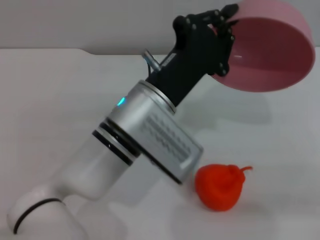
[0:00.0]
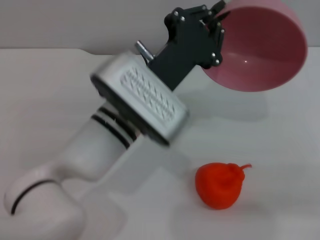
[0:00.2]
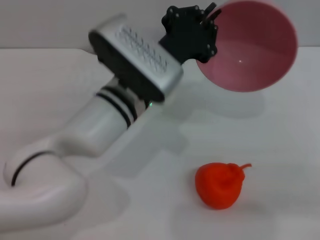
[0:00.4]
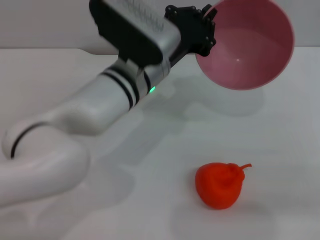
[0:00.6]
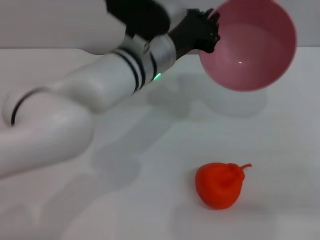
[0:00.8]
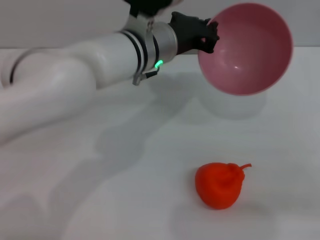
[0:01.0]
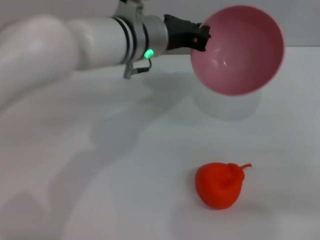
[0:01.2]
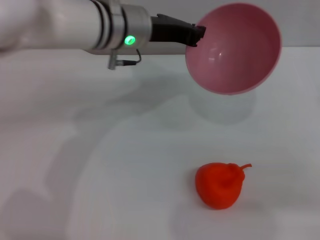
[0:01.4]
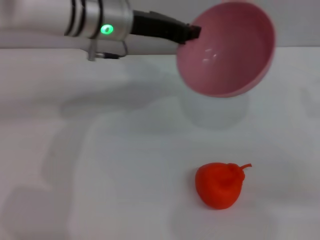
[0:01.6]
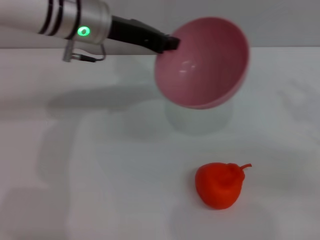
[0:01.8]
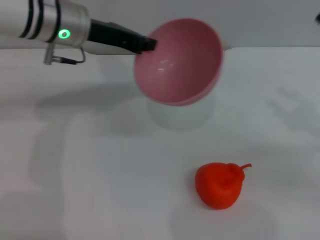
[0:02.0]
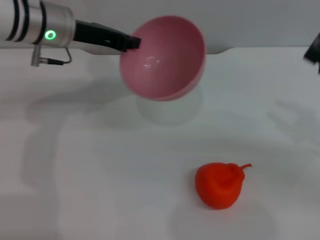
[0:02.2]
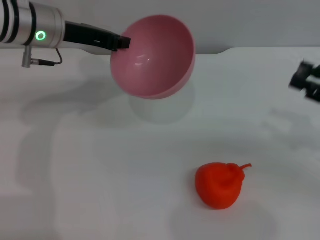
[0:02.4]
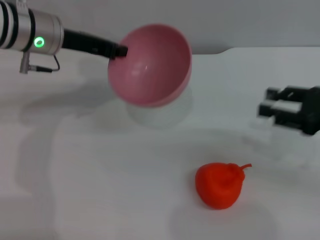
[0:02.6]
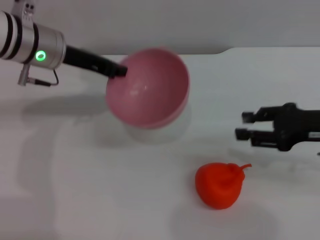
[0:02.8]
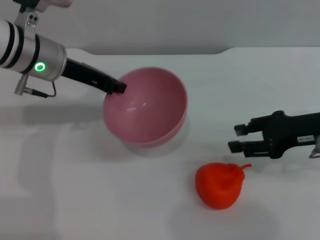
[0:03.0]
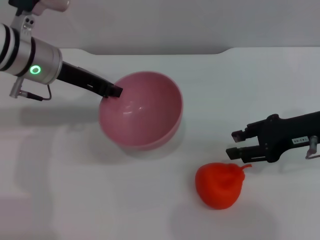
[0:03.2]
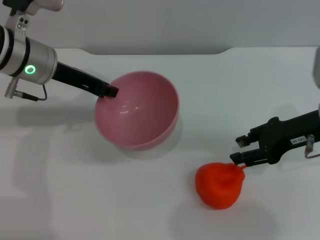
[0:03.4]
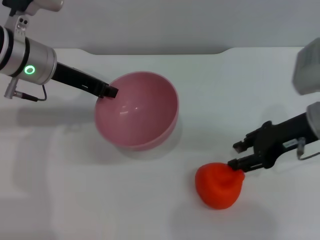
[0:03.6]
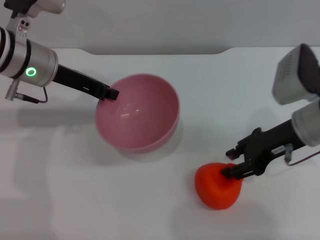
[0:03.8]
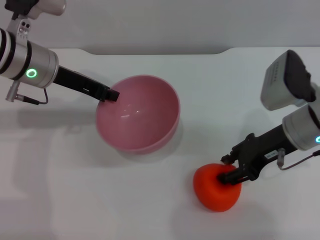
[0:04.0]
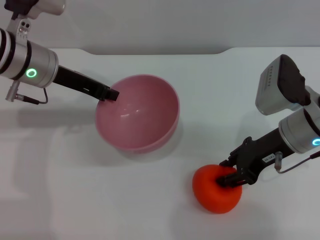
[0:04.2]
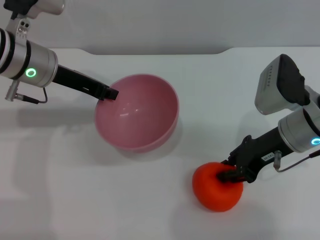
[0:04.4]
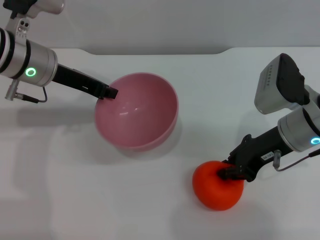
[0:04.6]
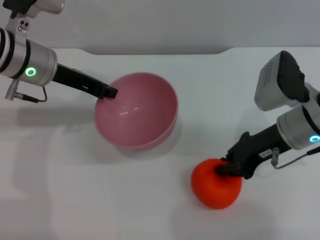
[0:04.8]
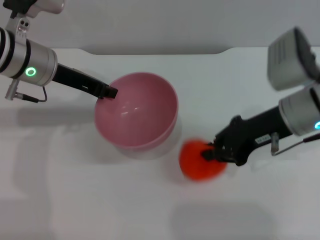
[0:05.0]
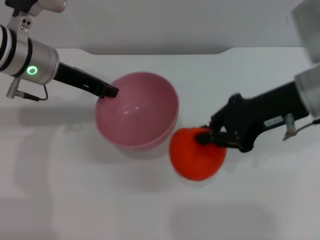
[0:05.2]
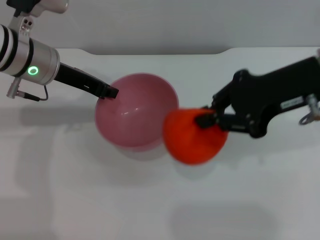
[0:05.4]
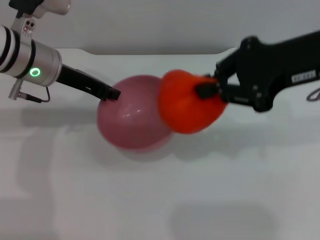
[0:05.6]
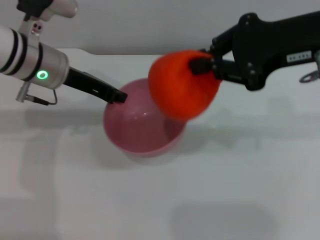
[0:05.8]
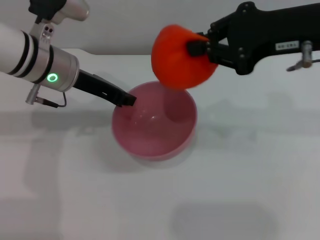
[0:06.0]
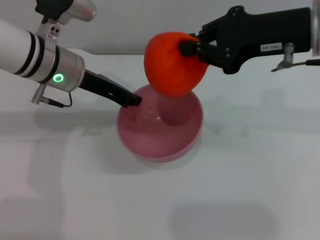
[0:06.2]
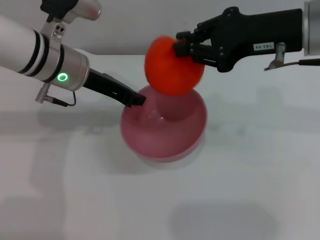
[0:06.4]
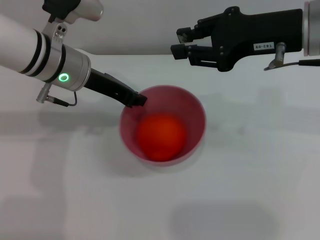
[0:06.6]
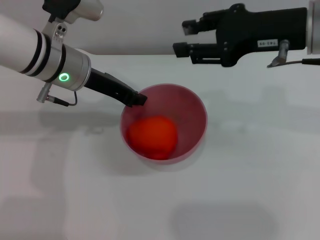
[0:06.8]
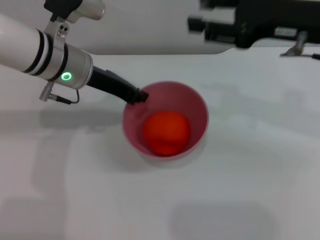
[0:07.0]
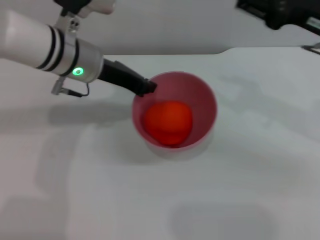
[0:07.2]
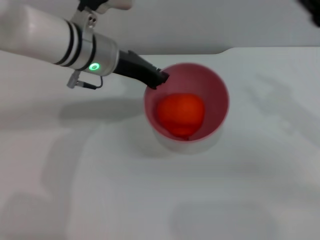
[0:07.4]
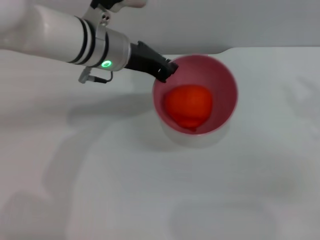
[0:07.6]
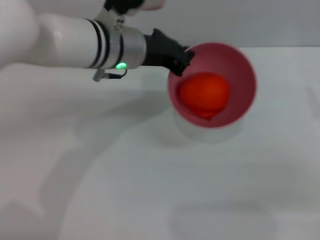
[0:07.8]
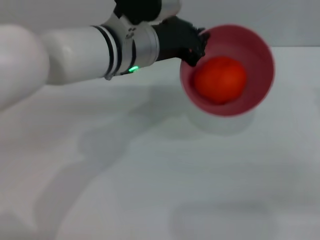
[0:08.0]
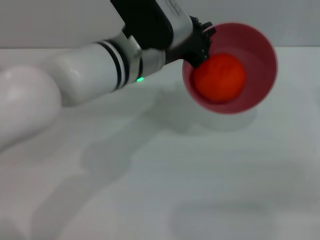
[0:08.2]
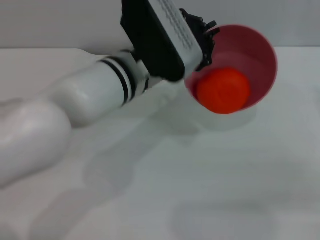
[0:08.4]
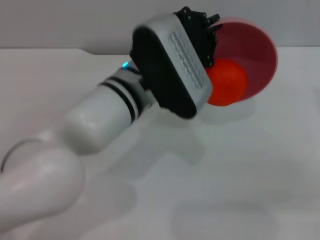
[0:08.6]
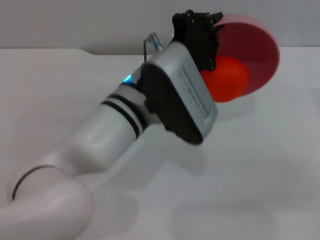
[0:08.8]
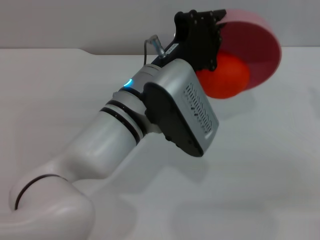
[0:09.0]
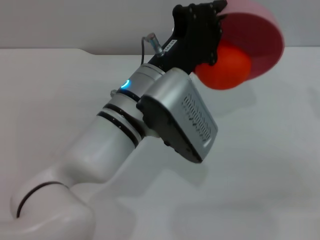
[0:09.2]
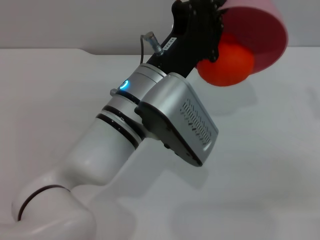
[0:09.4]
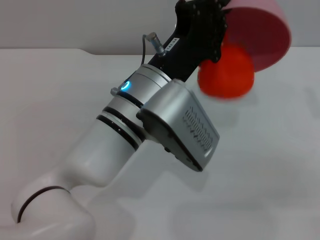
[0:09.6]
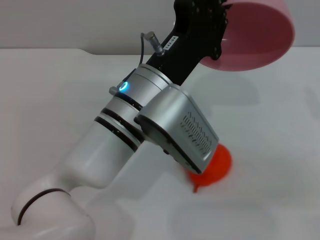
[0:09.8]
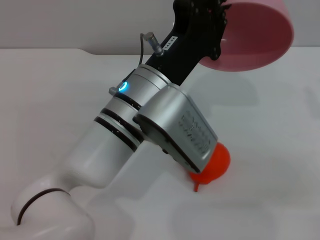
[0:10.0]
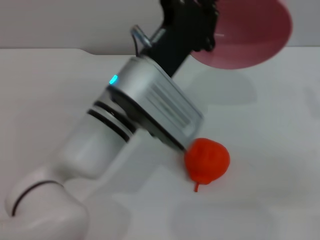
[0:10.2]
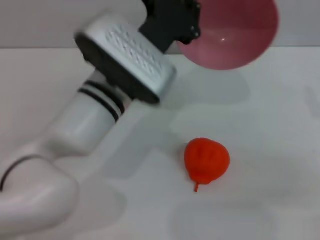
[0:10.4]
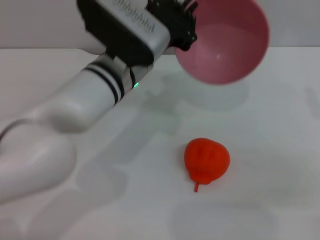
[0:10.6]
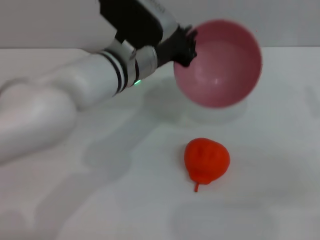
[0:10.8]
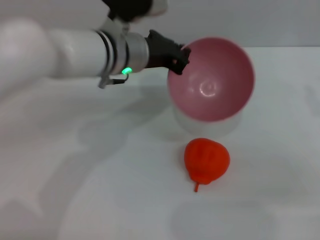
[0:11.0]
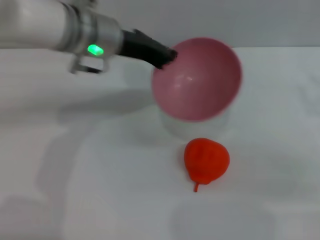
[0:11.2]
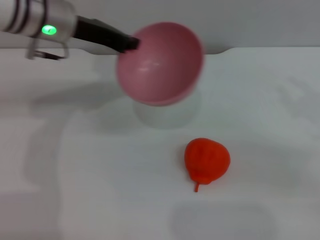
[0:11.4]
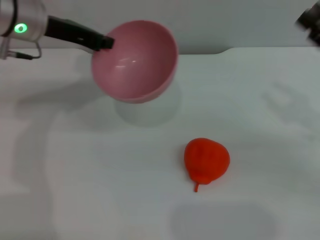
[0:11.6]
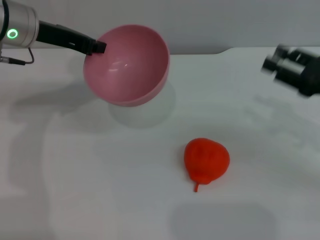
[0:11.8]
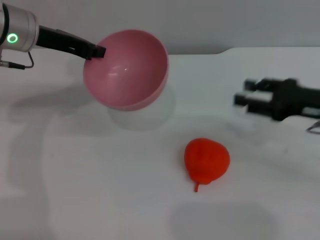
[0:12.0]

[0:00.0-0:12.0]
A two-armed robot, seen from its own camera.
Task of the whole recording: put the orange into the pink bowl and pour it out repeatedly.
Step, 0.2 to 5.2 s: Pick up the orange with the right gripper.
Step, 5.4 to 7.0 s: Place the orange into the bowl.
Step, 7.2 to 10.0 s: Pour the orange out of the bowl.
0.0 to 1.6 s: The left gripper goes approximately 20 cm forward, upward and to the left.
1.6 to 3.0 s: The left gripper heads to the left, covering roughly 10 cm, while the right gripper heads to the left, covering approximately 5 cm.
3.0 to 4.4 s: The right gripper shifts some 5 cm to the left.
4.4 to 6.0 s: The right gripper is displaced upward by some 15 cm, and closes up.
6.0 to 7.6 s: The left gripper shifts roughly 5 cm to the right; the right gripper goes some 15 cm downward, to the right and backward, and opens.
7.6 to 9.0 s: The left gripper is displaced backward and to the right by approximately 15 cm.
10.4 to 12.0 s: The right gripper is displaced forward by roughly 5 cm. The left gripper moves to the left and forward, about 20 cm.

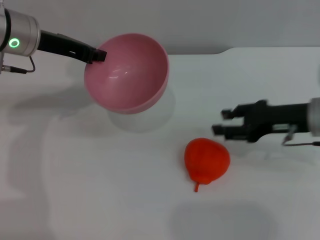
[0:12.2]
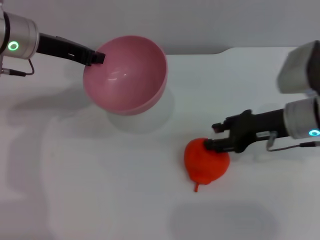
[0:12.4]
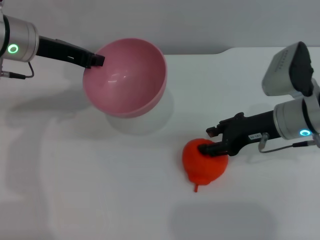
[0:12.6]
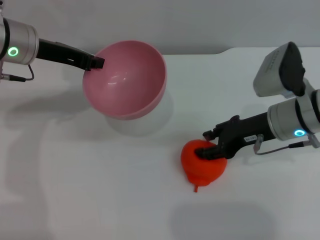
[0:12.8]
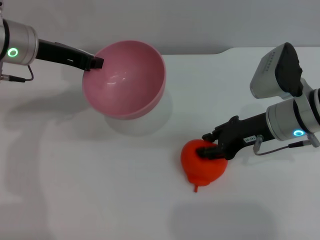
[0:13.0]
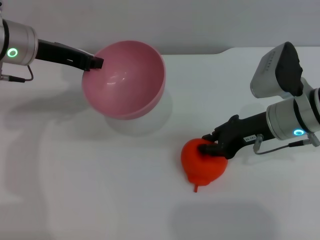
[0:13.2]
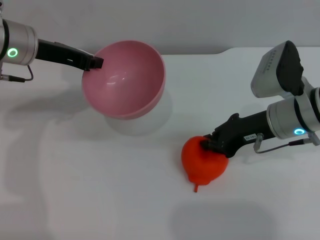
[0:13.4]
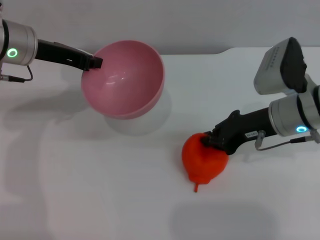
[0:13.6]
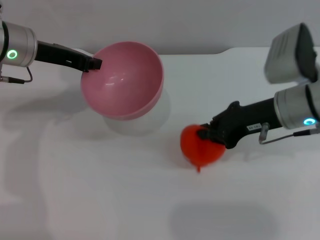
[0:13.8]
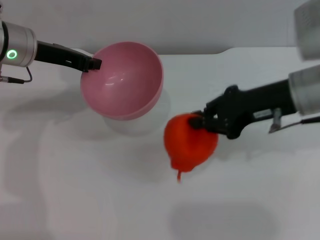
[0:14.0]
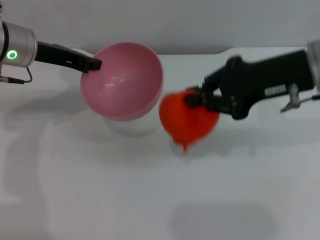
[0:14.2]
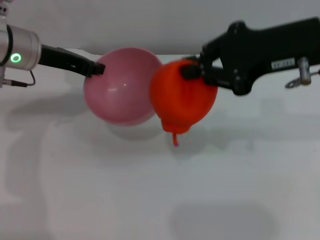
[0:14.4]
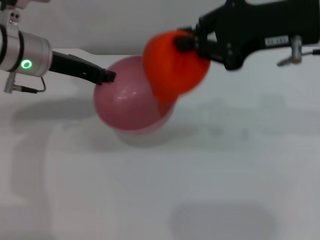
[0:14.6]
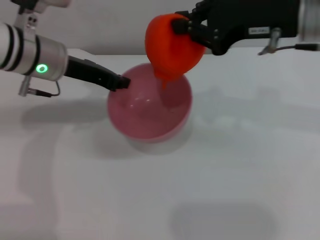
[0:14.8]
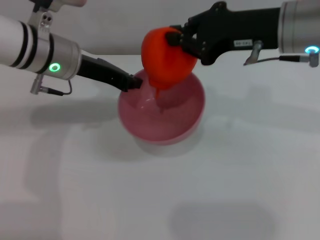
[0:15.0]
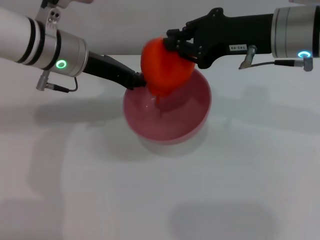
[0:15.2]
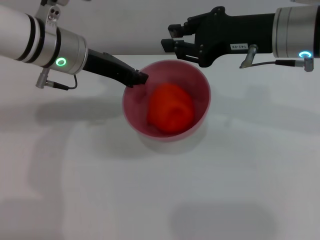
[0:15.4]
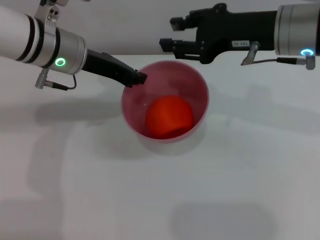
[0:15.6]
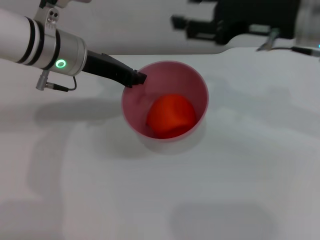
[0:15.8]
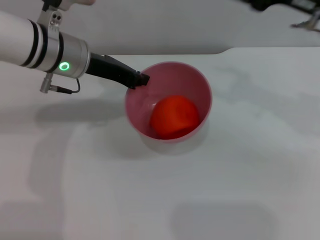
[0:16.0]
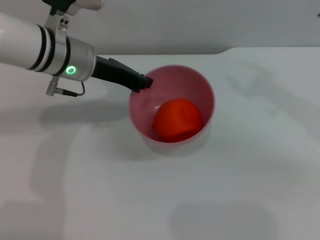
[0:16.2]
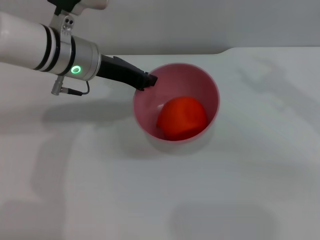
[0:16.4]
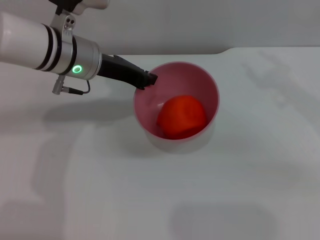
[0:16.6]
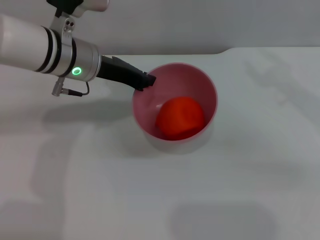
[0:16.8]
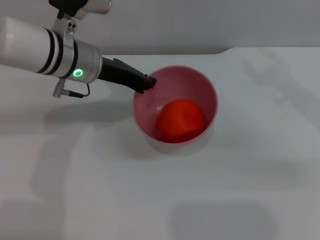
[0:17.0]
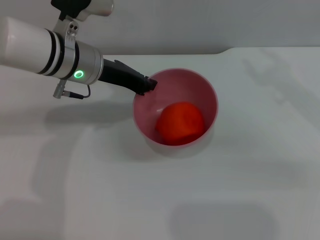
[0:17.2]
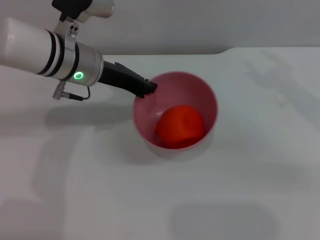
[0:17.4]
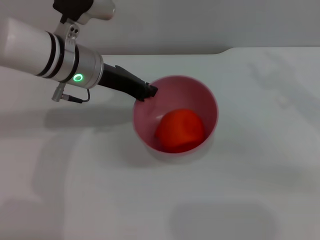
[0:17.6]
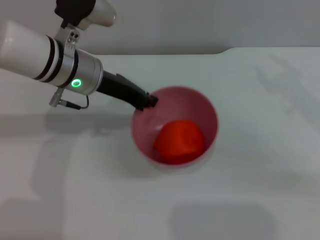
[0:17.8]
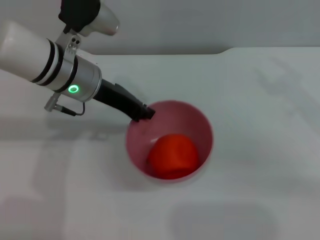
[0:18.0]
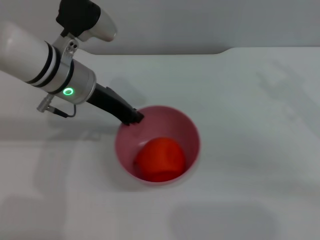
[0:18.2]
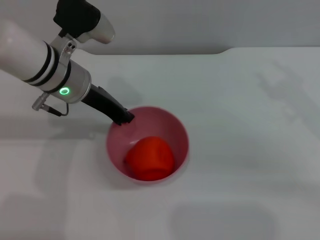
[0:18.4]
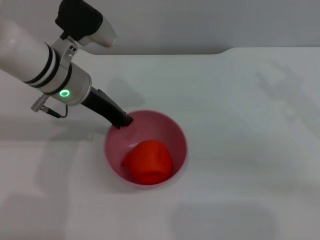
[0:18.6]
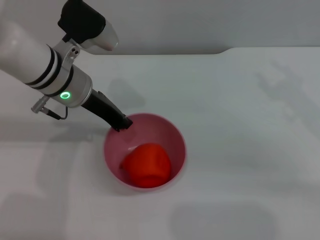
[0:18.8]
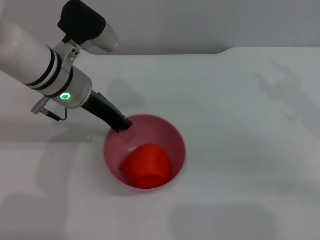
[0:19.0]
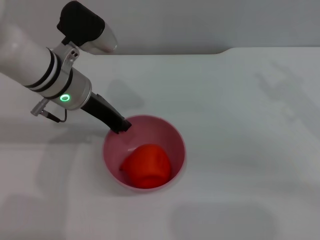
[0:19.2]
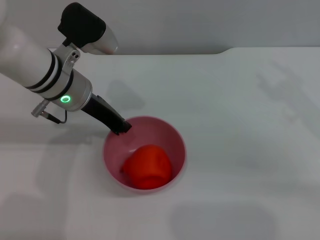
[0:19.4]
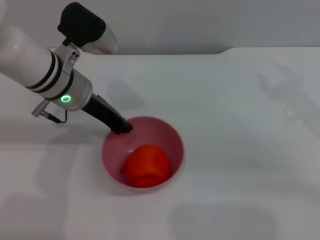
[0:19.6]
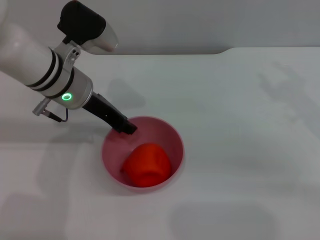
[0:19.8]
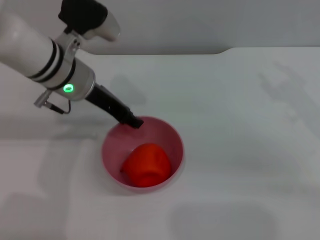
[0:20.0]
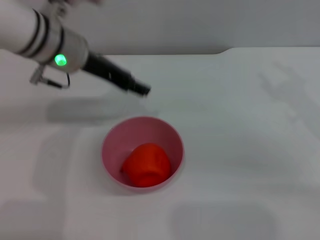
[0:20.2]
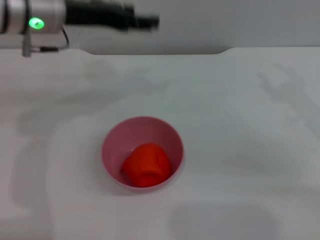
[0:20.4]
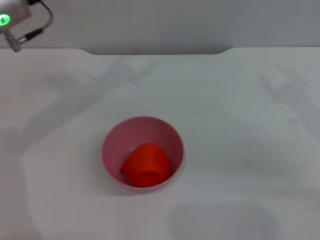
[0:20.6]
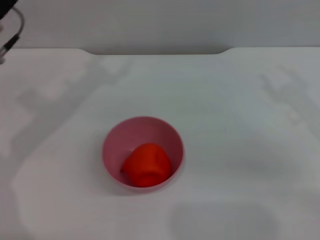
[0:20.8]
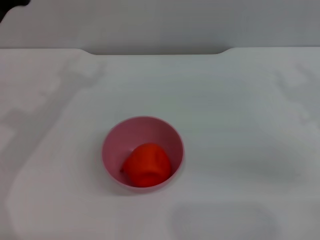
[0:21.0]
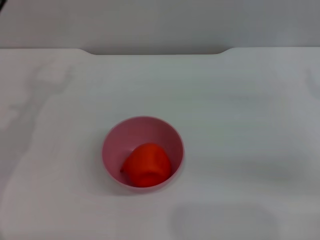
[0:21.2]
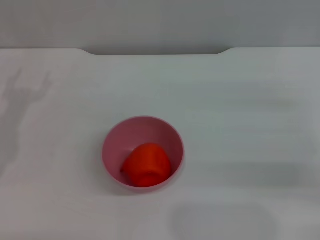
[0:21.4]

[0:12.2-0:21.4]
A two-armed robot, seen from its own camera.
Task of the whole recording: put the orange into the pink bowl and pour it out repeatedly.
Step, 14.2 to 15.4 s: Place the orange into the bowl.
Step, 15.6 to 20.0 s: Place the bowl on the table.
12.2 to 13.8 s: The right gripper shifts some 5 cm to the left, and closes.
13.8 to 15.2 s: The right gripper is displaced upward by some 10 cm, while the left gripper goes approximately 5 cm to the right.
15.2 to 16.8 s: The right gripper shifts roughly 10 cm to the right, and opens its fingers.
16.8 to 18.4 s: The right gripper ends up about 5 cm from where it was.
18.4 to 19.8 s: The two grippers keep their place.
19.8 to 21.4 s: The right gripper travels to the right and downward by some 10 cm; the left gripper travels to the left and backward by approximately 20 cm, and opens up.

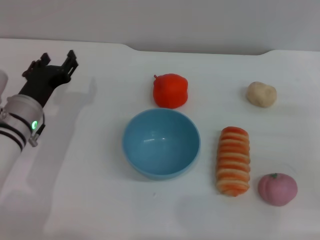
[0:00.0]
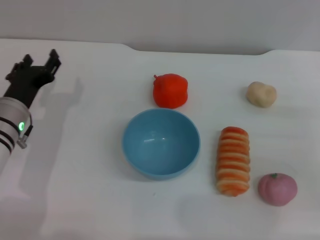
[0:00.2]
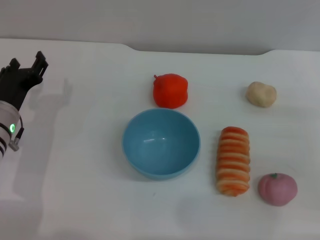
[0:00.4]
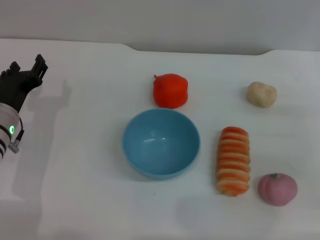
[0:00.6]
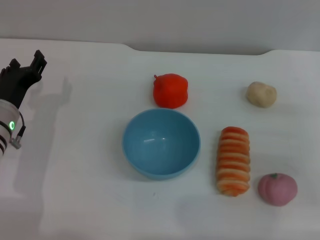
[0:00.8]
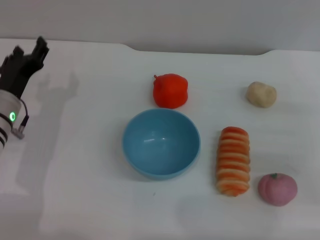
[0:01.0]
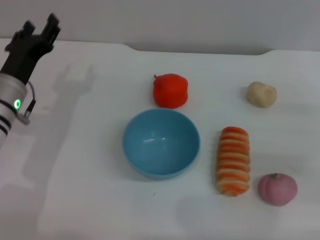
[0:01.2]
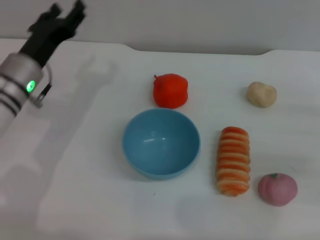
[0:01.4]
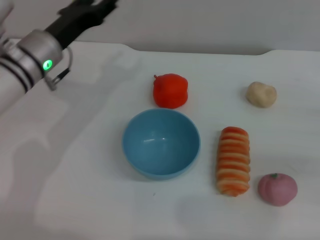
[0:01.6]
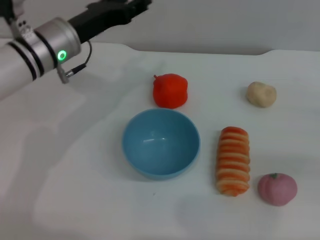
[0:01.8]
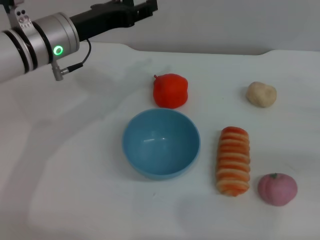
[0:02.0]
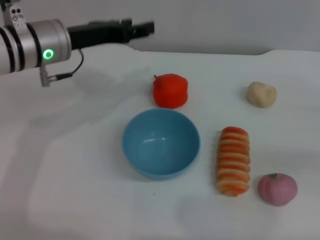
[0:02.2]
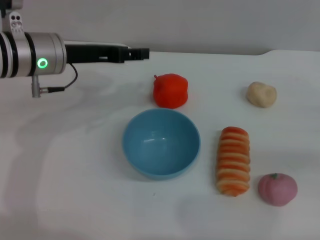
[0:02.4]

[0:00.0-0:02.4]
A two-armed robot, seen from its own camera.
Task of the whole recording: put the bread into the blue bowl and pour it out repeatedly.
1.2 to 2.4 s: The right gripper goes about 5 cm to the right. The left gripper moves upward, about 10 cm.
